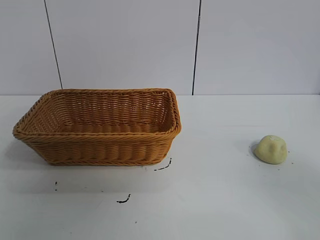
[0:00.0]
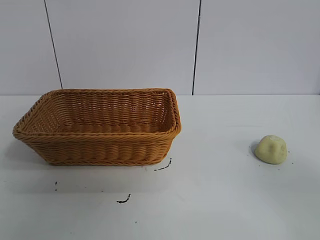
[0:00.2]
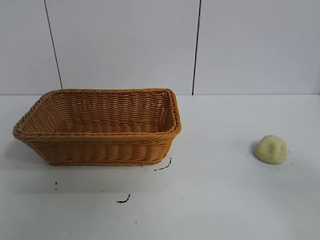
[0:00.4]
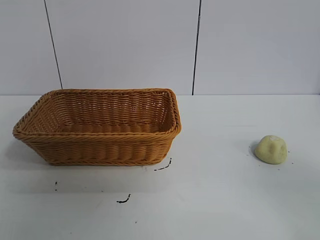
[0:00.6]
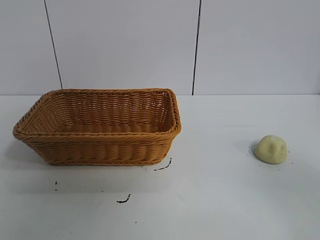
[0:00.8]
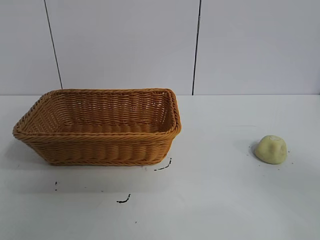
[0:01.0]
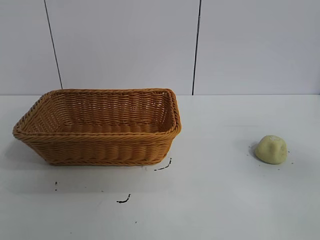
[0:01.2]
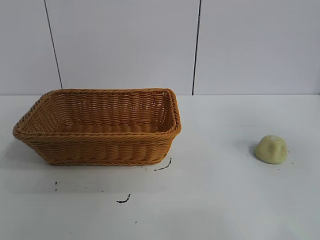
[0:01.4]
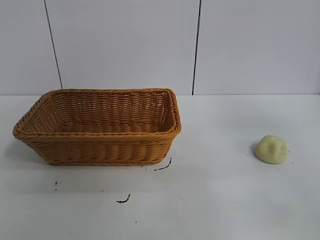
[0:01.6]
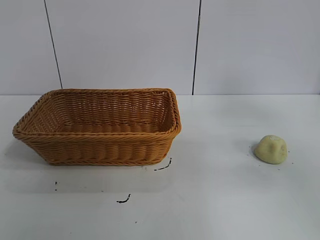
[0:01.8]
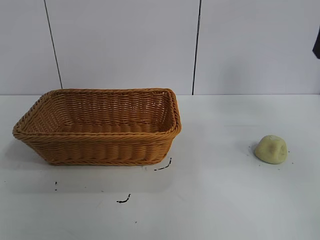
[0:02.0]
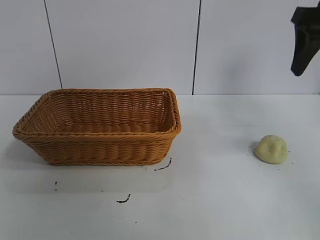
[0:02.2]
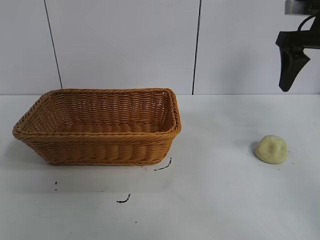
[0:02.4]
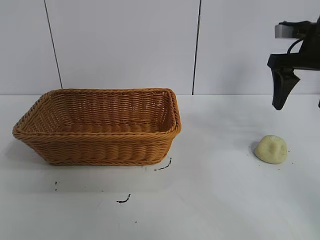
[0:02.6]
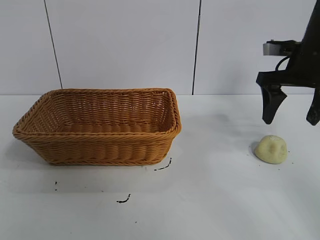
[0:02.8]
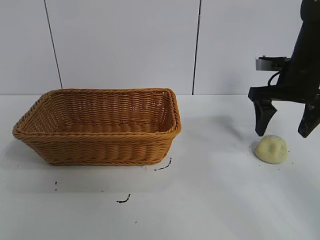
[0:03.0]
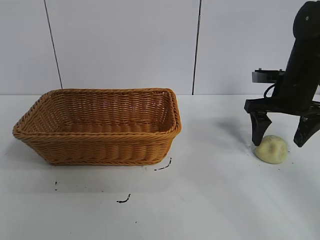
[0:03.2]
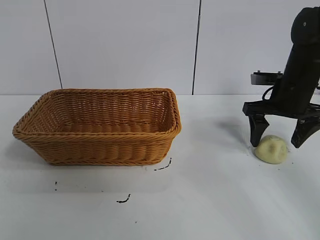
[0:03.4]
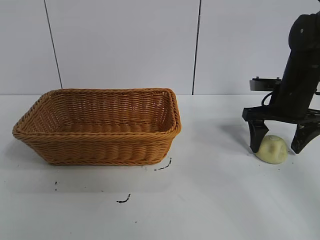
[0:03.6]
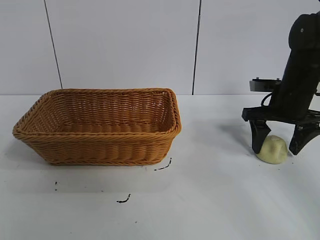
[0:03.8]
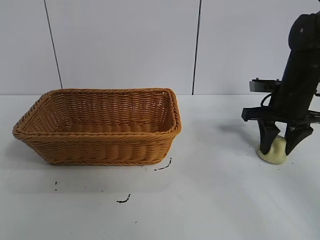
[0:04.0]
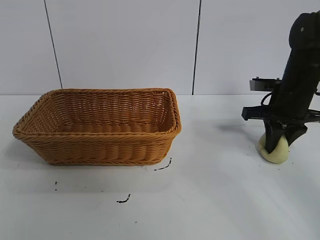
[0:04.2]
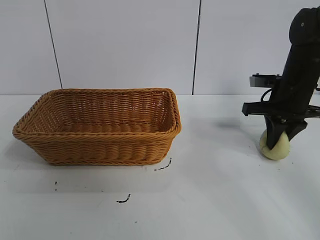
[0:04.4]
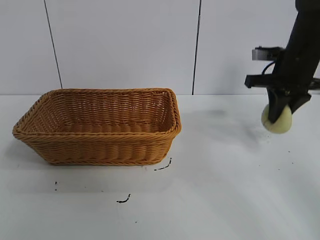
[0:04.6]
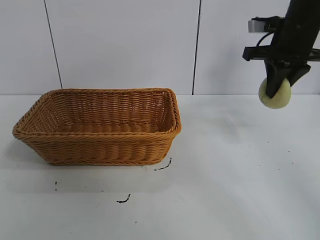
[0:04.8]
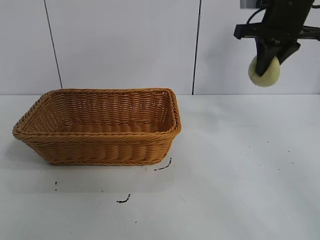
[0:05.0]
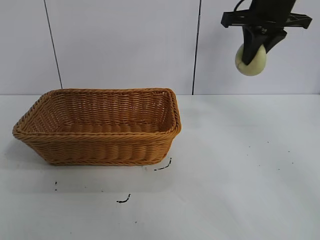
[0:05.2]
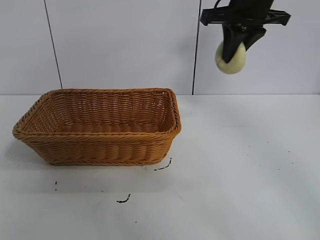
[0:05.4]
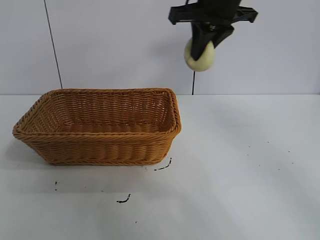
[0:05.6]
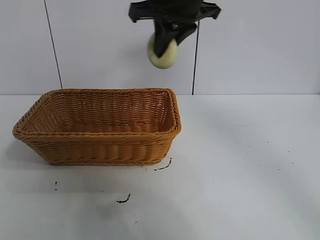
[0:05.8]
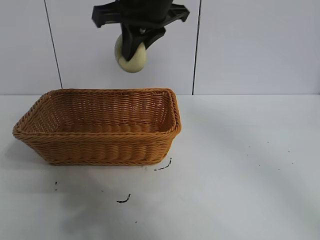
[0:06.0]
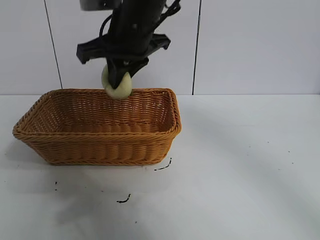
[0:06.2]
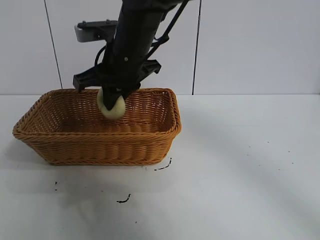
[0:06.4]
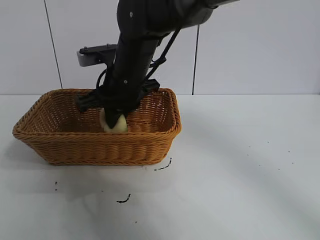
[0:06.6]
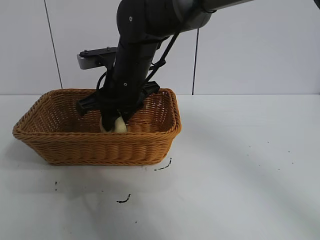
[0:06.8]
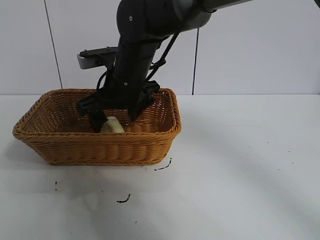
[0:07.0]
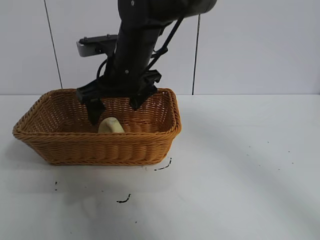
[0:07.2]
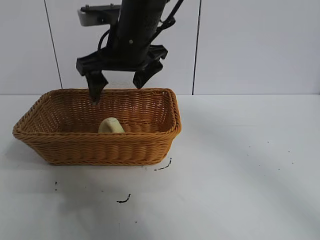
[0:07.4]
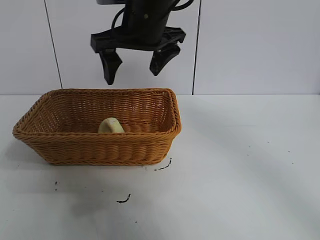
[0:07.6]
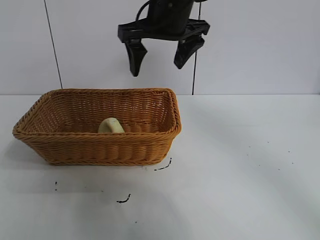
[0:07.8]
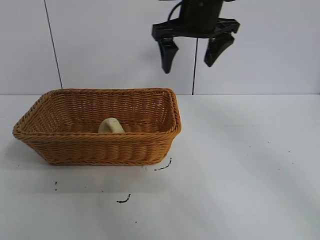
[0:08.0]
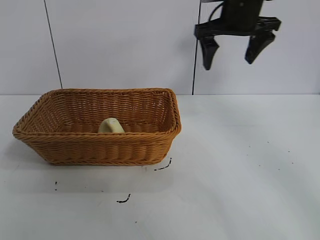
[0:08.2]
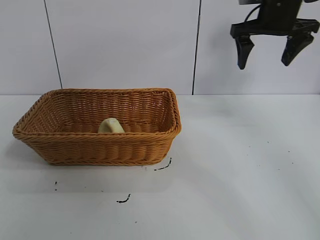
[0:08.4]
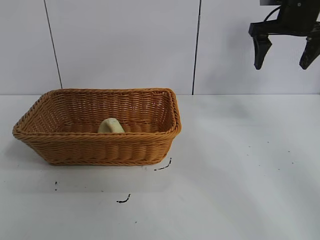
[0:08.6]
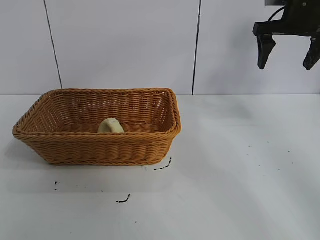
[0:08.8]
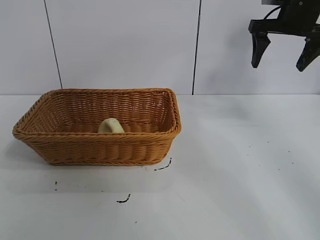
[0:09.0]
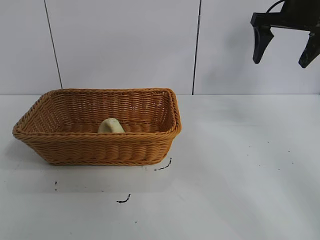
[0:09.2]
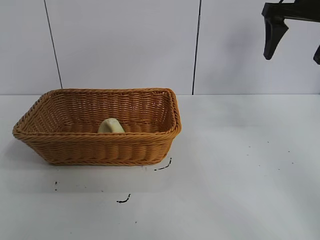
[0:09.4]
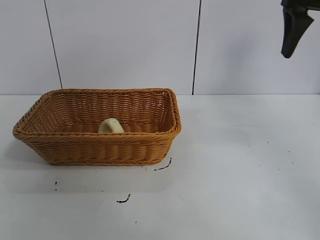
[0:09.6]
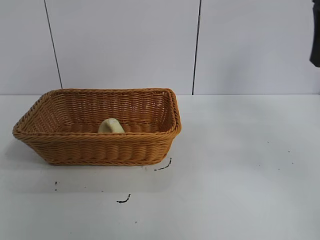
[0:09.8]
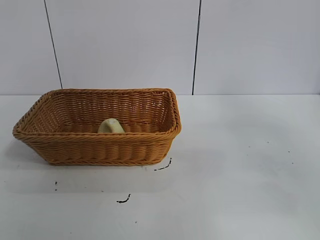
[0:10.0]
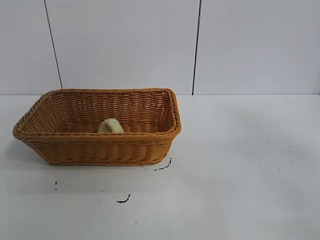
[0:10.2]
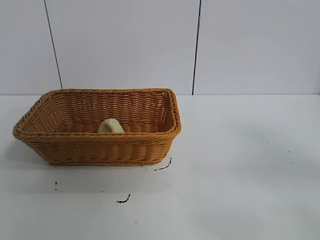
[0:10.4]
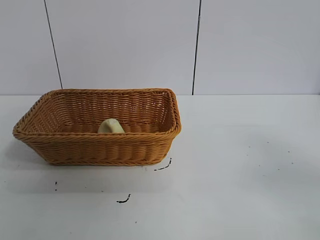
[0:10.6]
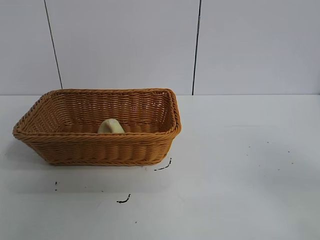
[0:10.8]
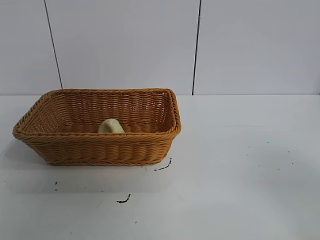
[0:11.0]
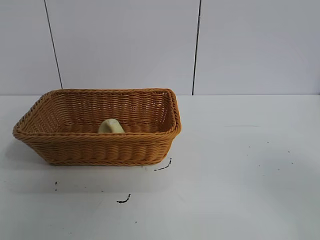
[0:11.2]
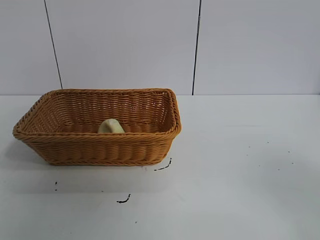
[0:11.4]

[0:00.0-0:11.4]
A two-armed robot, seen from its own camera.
Task of the whole recording: pick up the egg yolk pastry and put it into the basket.
Step, 0:00.8 to 0:04.0: Grasp egg yolk pastry with right gripper.
Step, 0:04.2 to 0:06.8: Place the egg yolk pastry in the basket with right gripper.
